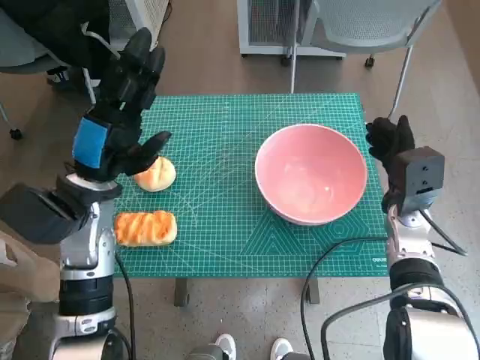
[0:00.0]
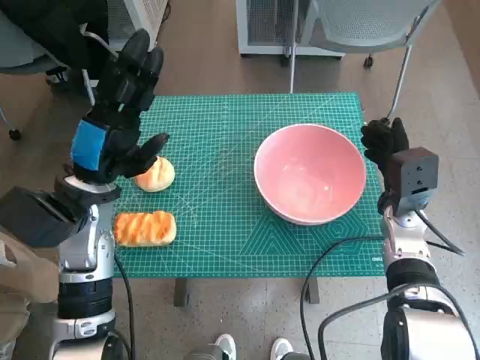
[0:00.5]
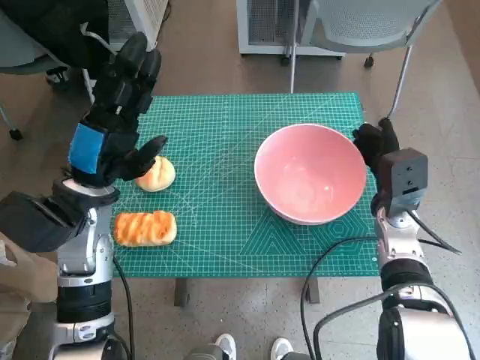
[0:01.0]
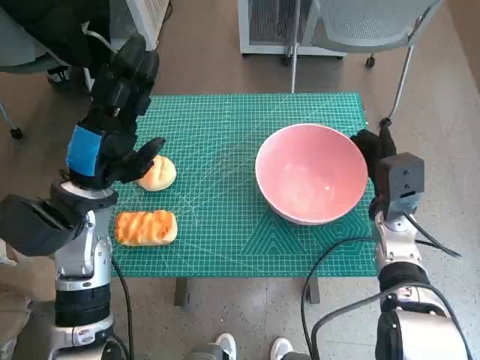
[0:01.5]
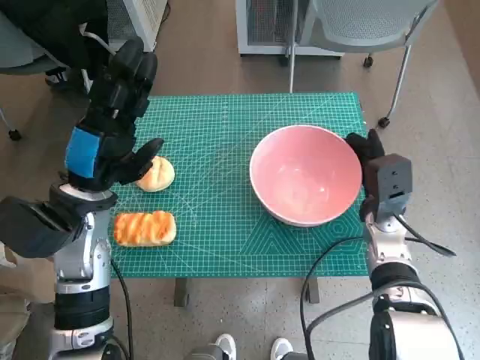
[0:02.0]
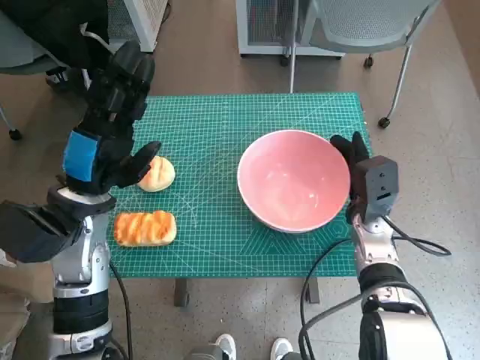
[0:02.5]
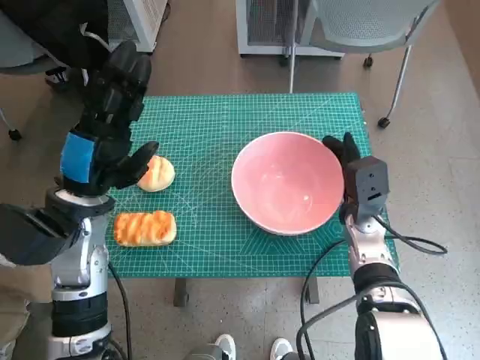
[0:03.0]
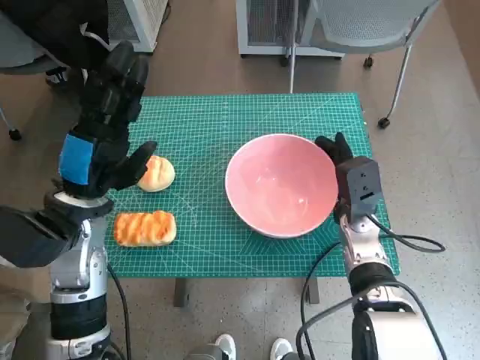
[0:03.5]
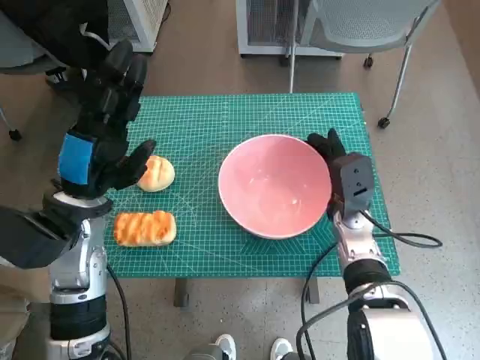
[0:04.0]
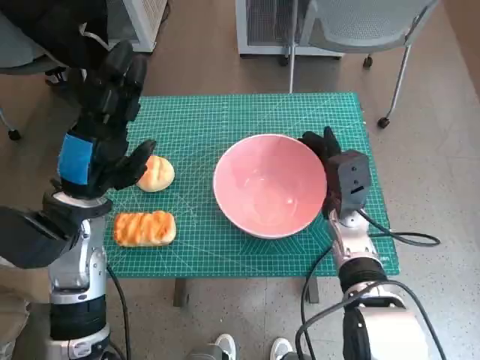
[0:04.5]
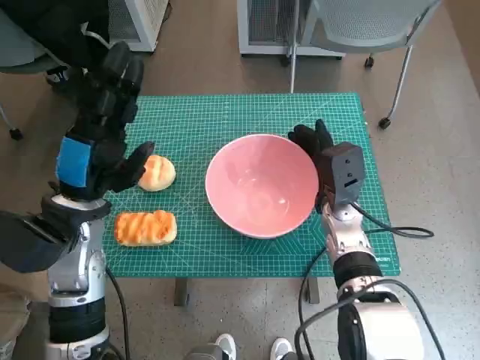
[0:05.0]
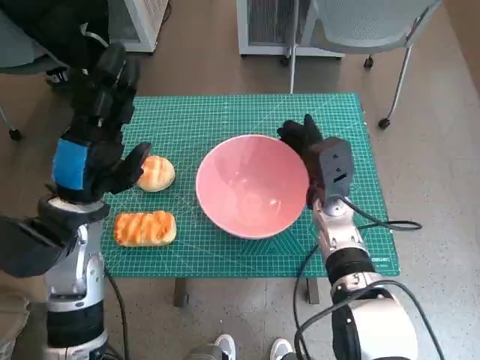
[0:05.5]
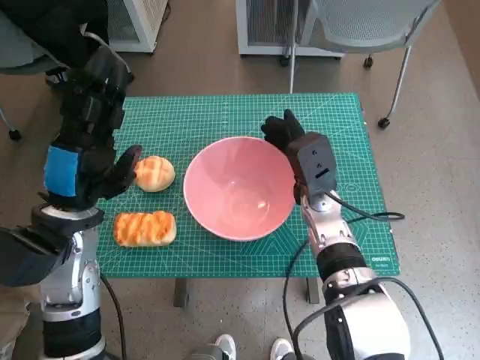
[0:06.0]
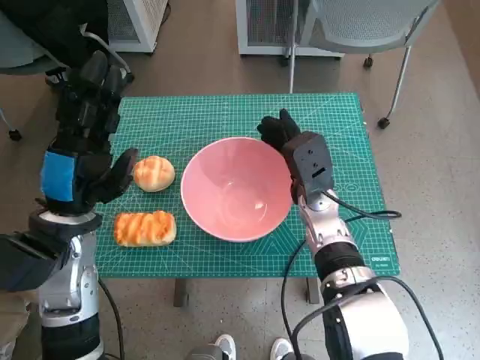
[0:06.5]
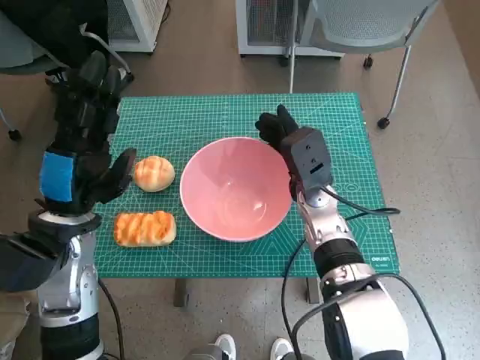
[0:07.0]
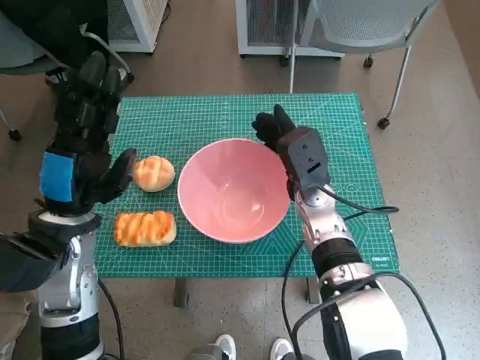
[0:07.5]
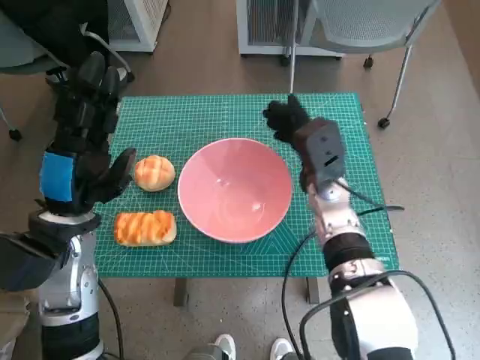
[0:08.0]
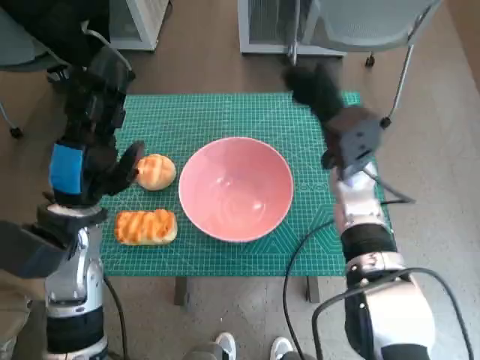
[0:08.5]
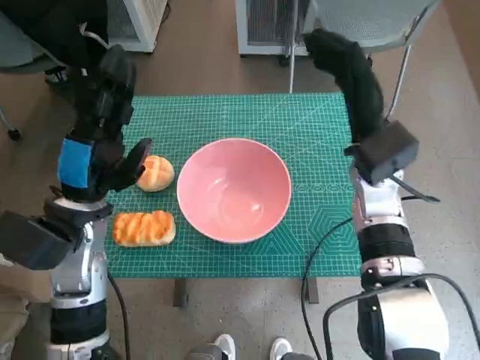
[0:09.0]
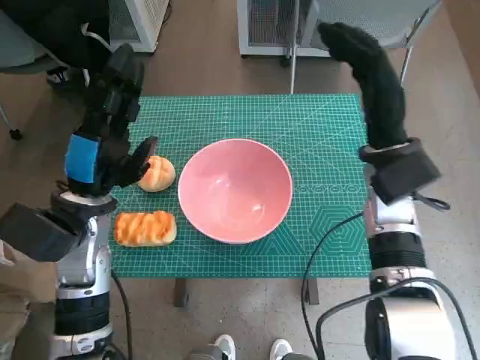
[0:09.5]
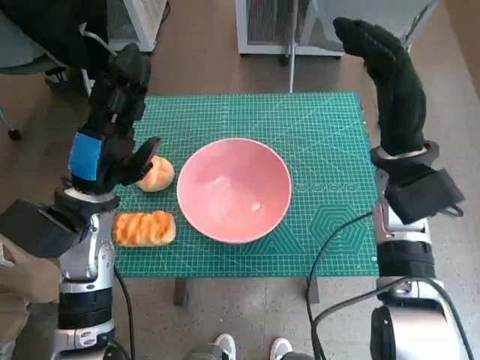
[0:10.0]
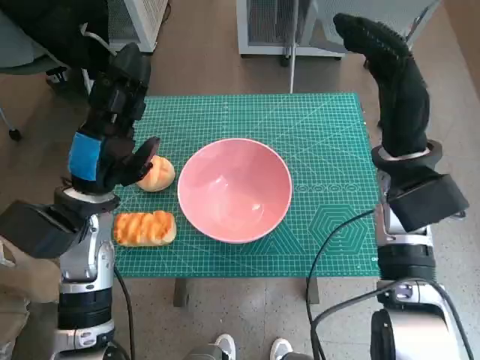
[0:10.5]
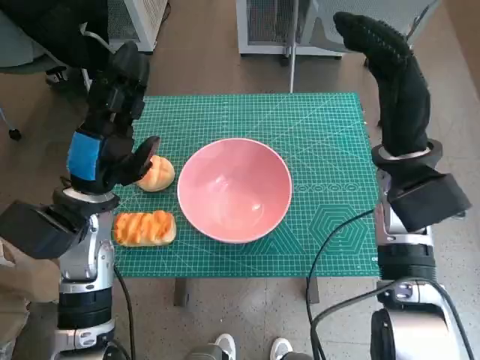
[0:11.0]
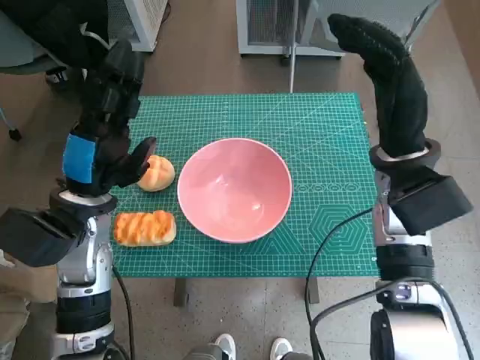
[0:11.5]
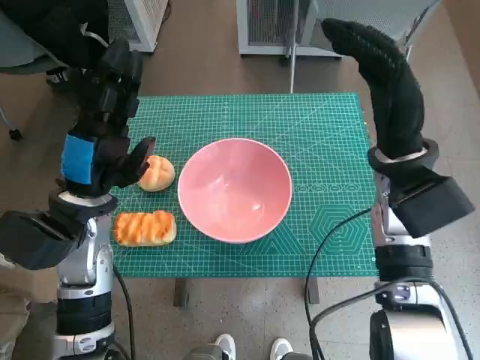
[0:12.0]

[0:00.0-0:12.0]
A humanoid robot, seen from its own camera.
Step, 0:00.0 to 0:07.5: Move the pink bowl to the center of table with right hand.
0:04.0 to 0:06.0: The right hand is displaced to the left by roughly 5 cm.
0:06.0 to 0:08.0: There are only small adjustments of the hands.
0:08.0 to 0:10.0: The right hand goes approximately 10 cm upward and to the right.
0:10.0 to 0:12.0: The hands move only a little.

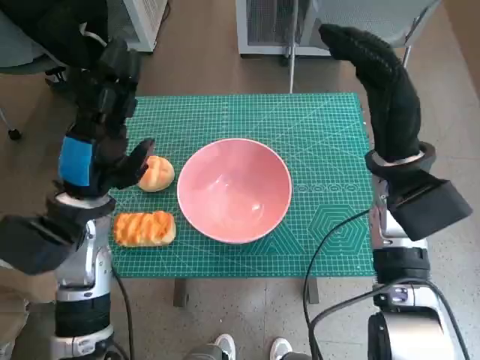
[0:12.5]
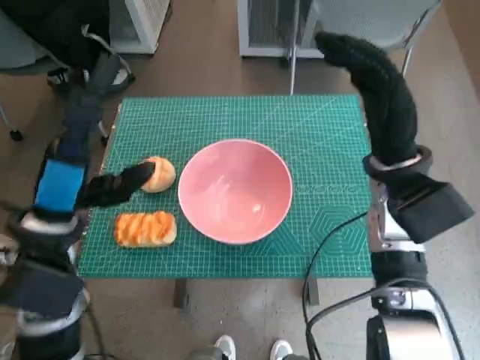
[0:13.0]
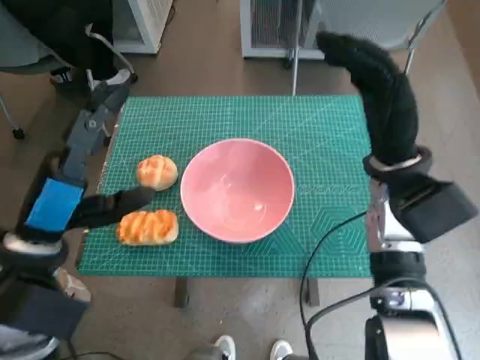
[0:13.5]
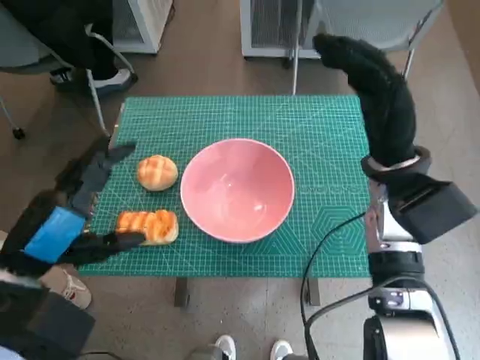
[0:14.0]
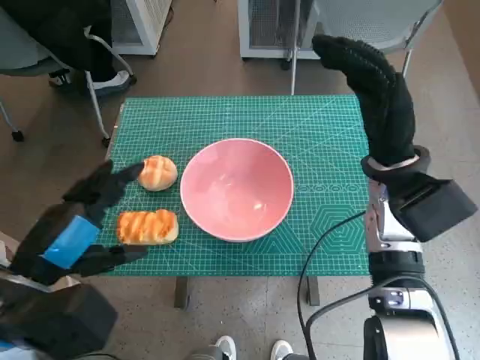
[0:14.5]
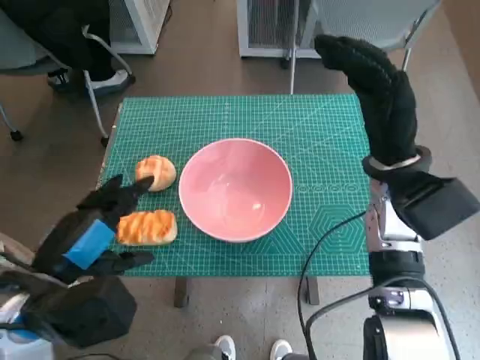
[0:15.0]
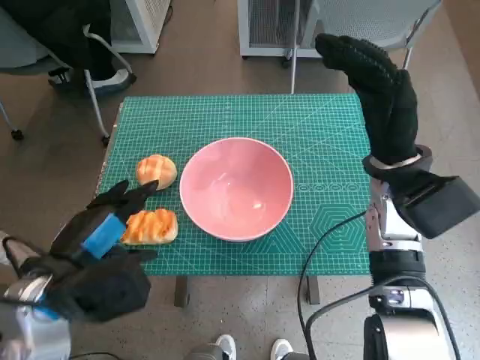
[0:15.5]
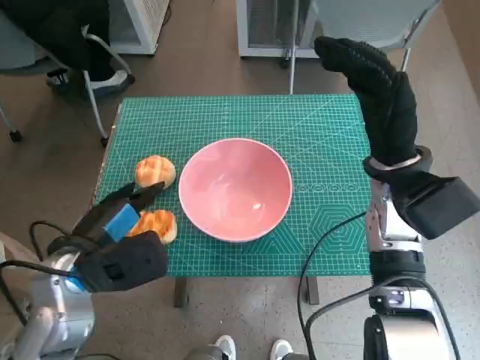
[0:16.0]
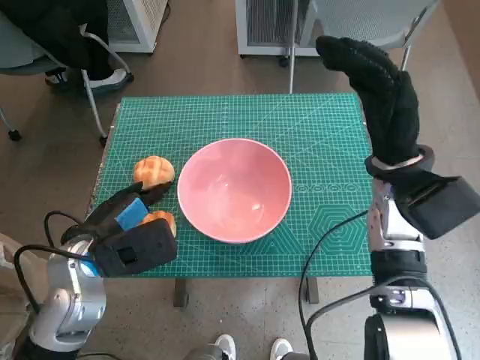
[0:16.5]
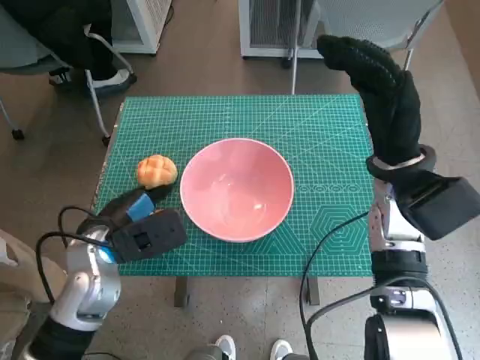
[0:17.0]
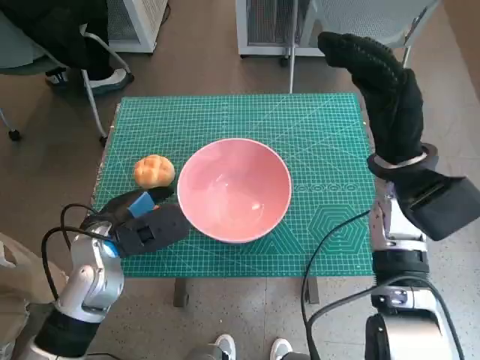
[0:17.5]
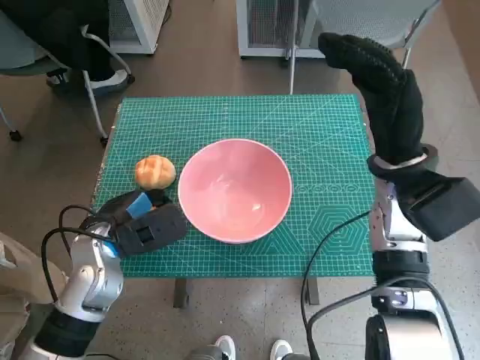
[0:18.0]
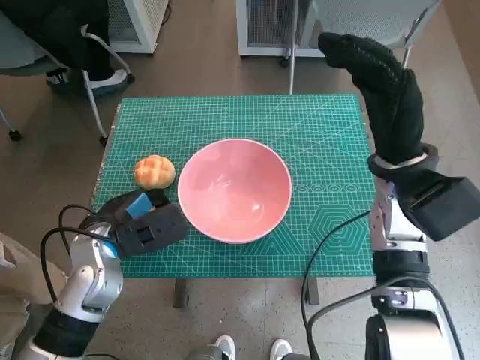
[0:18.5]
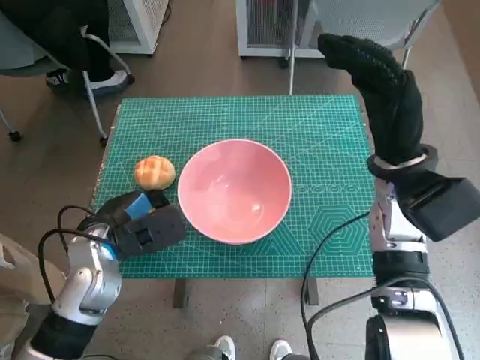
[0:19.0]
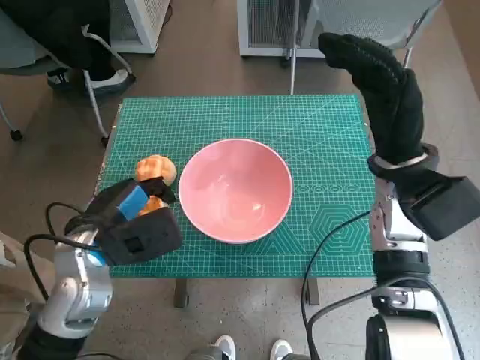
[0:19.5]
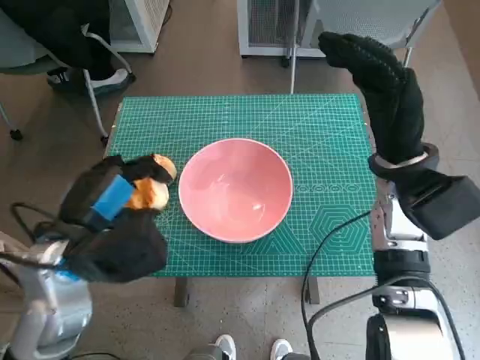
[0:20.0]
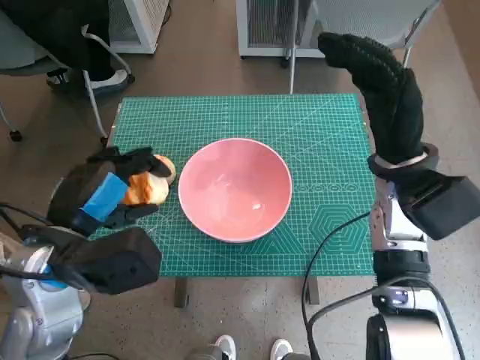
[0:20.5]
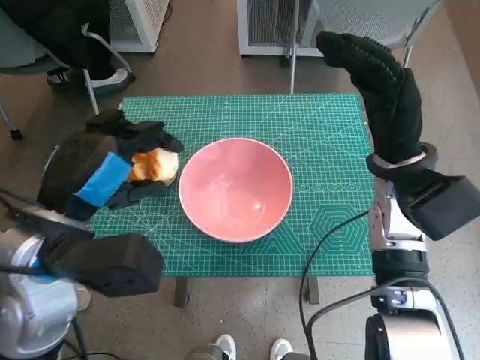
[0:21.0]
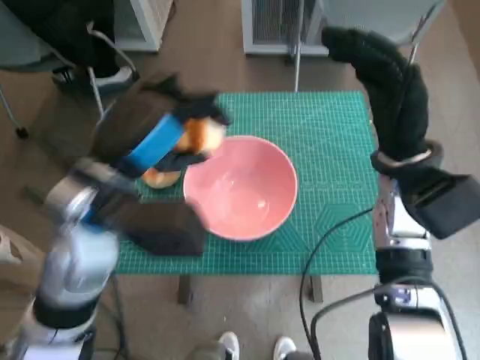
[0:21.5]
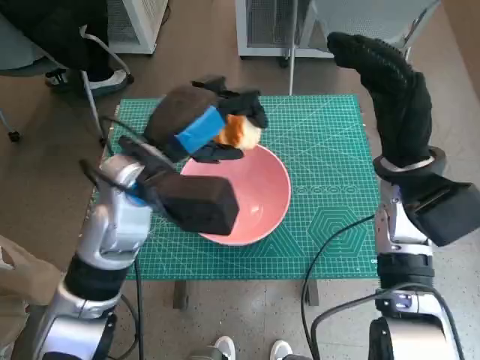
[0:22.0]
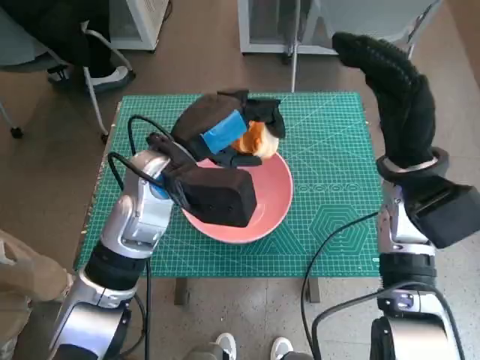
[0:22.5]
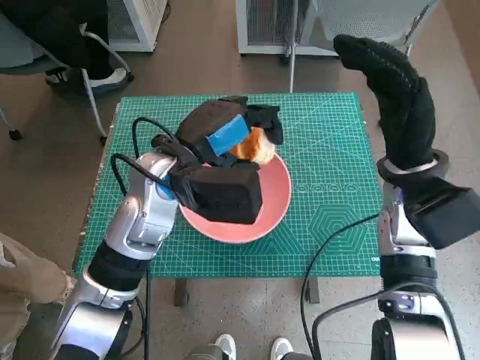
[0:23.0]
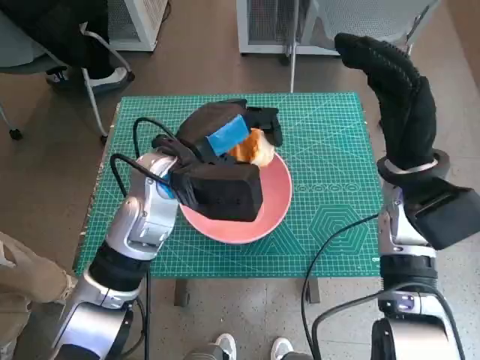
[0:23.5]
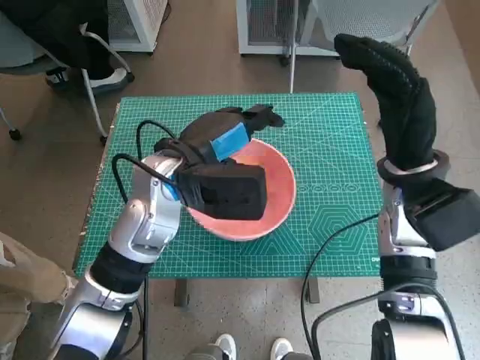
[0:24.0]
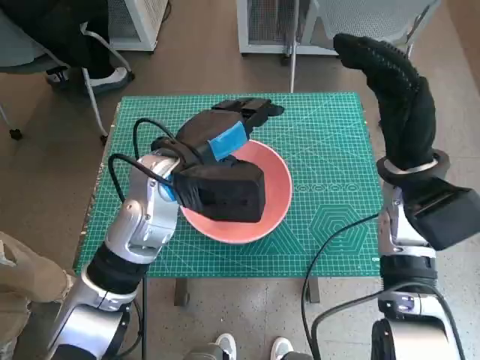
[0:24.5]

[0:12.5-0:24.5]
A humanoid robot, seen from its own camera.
Step, 0:12.5 to 0:18.0: Grasp the long bread with left hand.
0:12.5 to 0:14.5: The left hand is displaced backward by some 10 cm.
0:14.5 to 0:16.5: The left hand heads forward and downward, covering approximately 10 cm.
0:16.5 to 0:18.5: The hands make only small movements.
0:18.5 to 0:20.5: The left hand moves upward and backward, roughly 10 cm.
0:20.5 to 0:22.5: The left hand is displaced forward and to the right by approximately 15 cm.
0:22.5 to 0:24.5: There are only small adjustments of the hands.

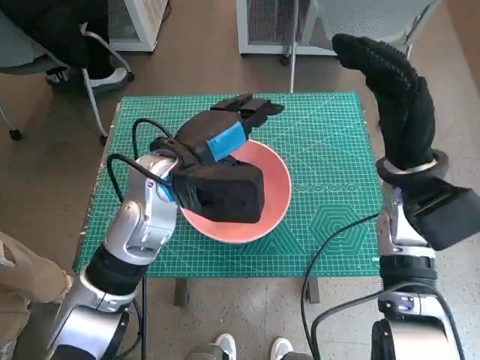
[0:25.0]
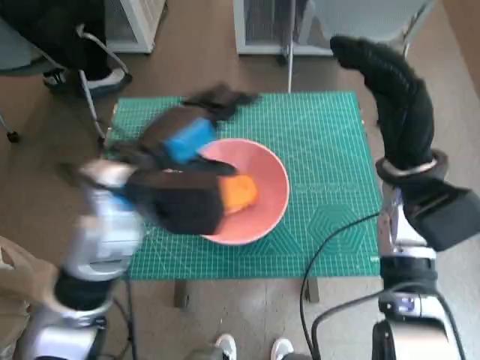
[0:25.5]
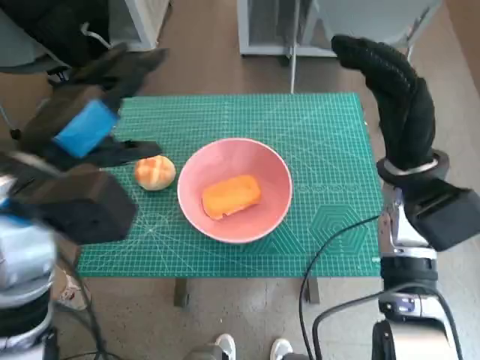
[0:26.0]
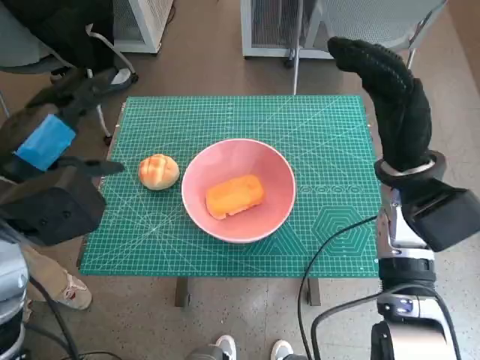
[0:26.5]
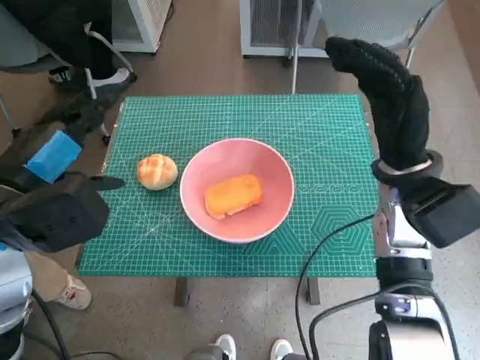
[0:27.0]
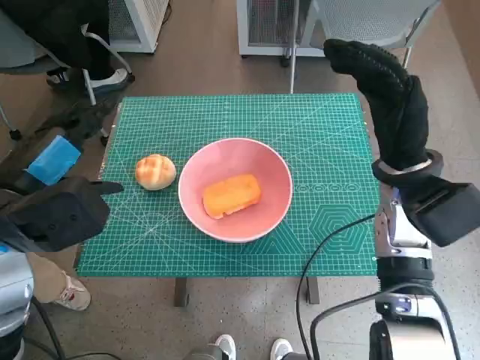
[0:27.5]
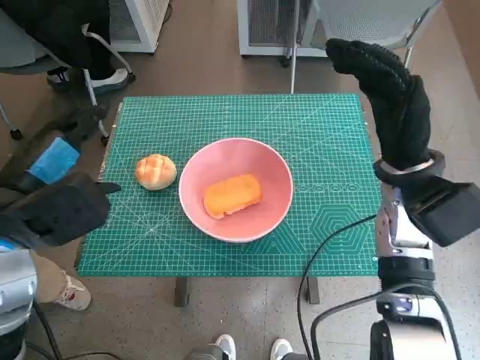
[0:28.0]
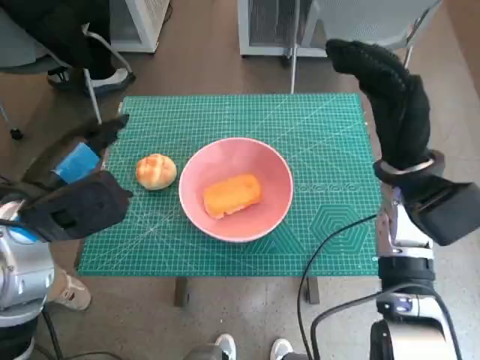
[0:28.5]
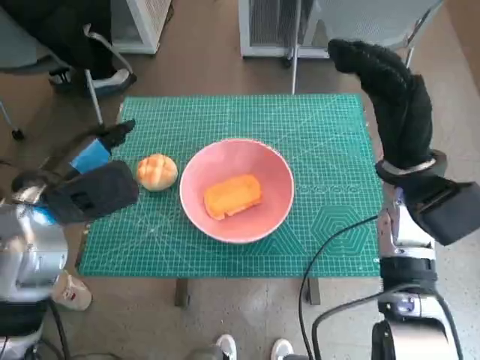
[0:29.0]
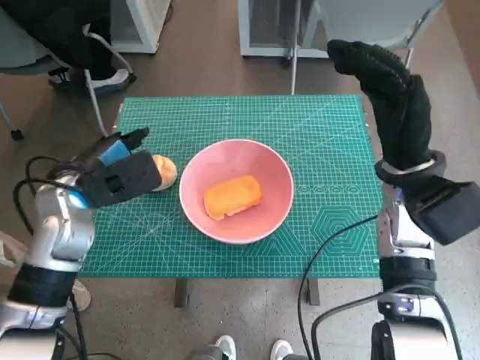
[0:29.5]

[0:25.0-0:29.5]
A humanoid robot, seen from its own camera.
0:25.0 to 0:27.0: The left hand heads to the left and backward, covering approximately 15 cm.
0:27.0 to 0:29.5: The left hand is displaced forward and downward by some 10 cm.
